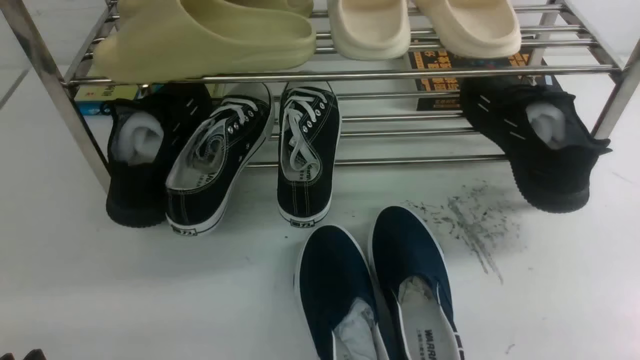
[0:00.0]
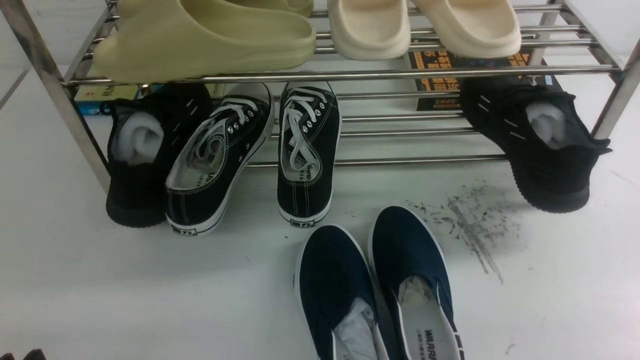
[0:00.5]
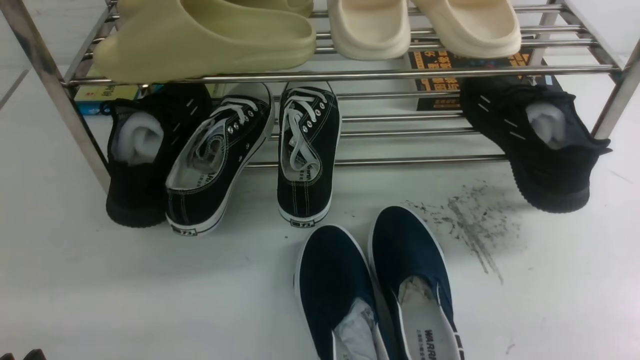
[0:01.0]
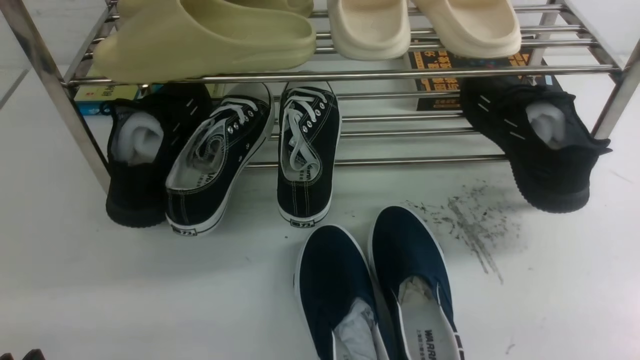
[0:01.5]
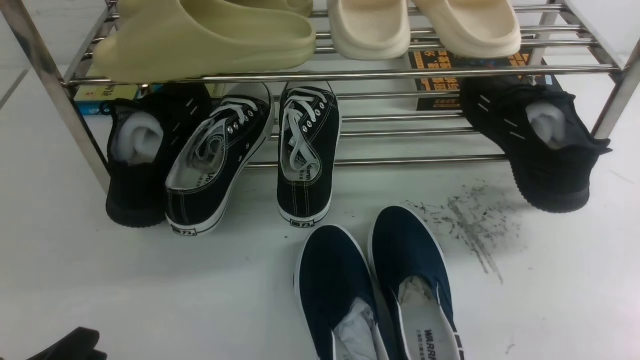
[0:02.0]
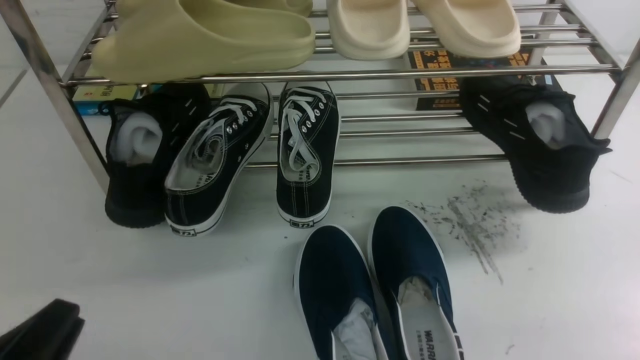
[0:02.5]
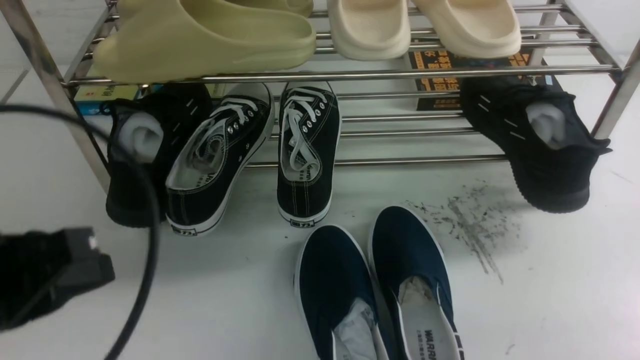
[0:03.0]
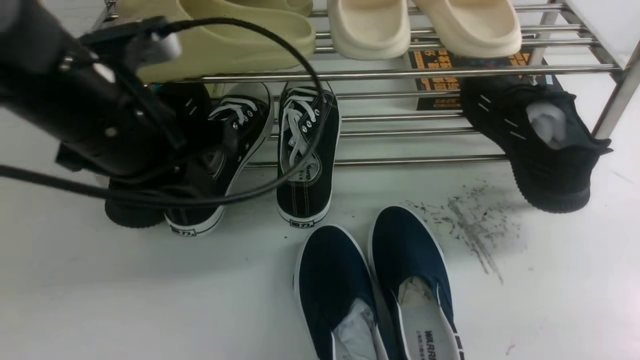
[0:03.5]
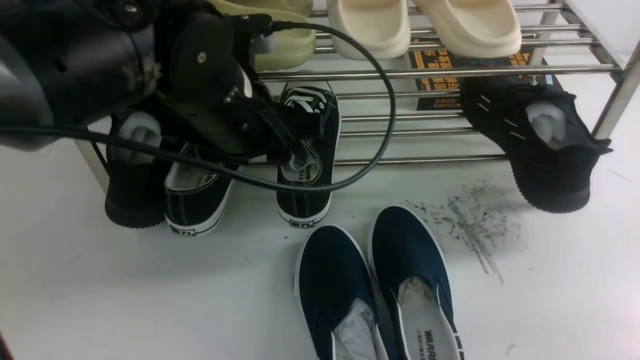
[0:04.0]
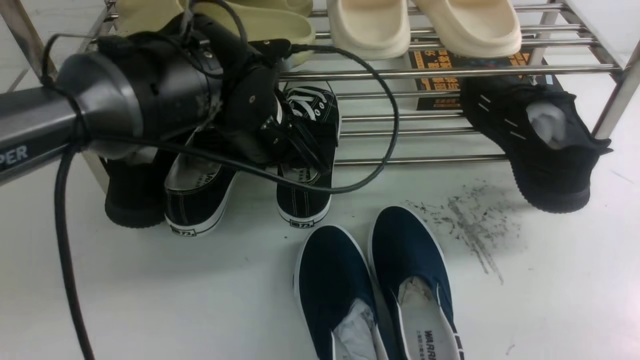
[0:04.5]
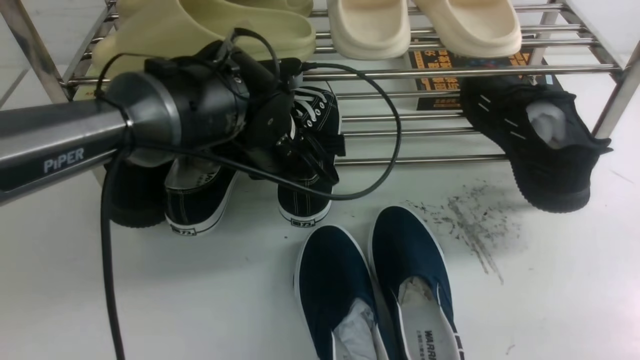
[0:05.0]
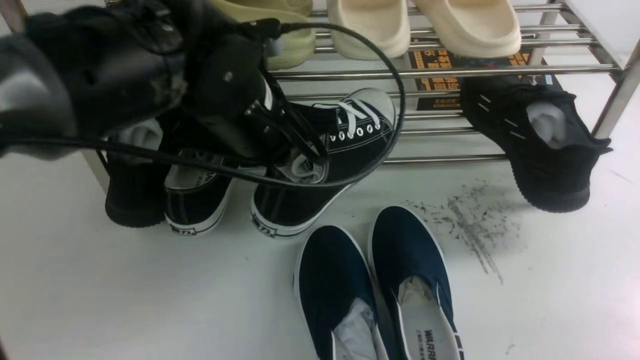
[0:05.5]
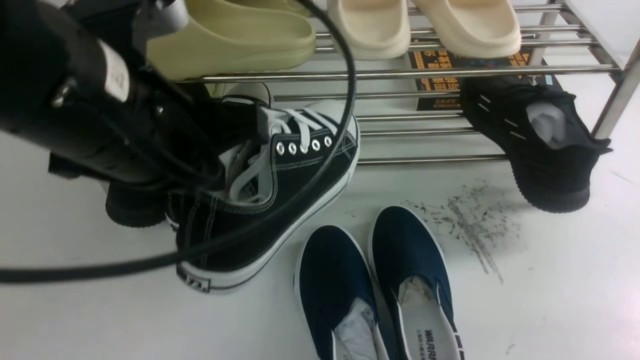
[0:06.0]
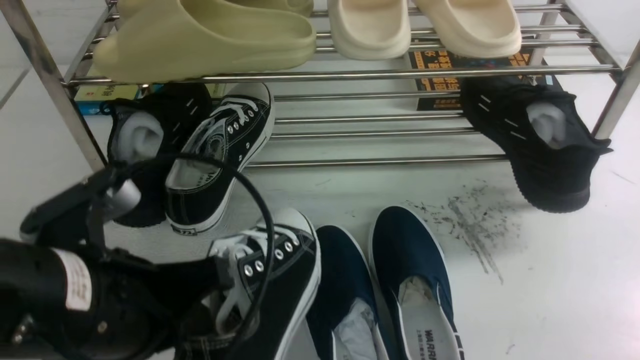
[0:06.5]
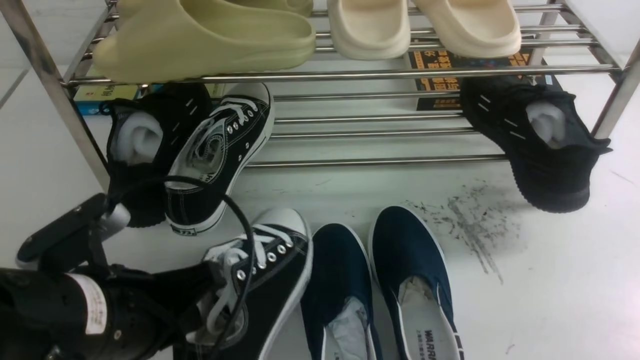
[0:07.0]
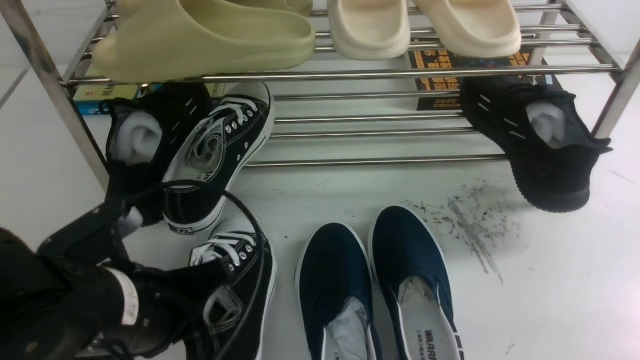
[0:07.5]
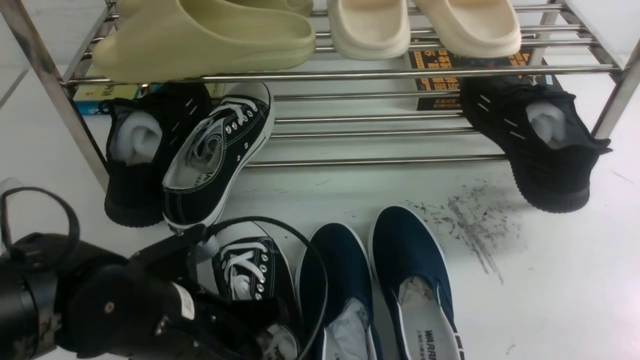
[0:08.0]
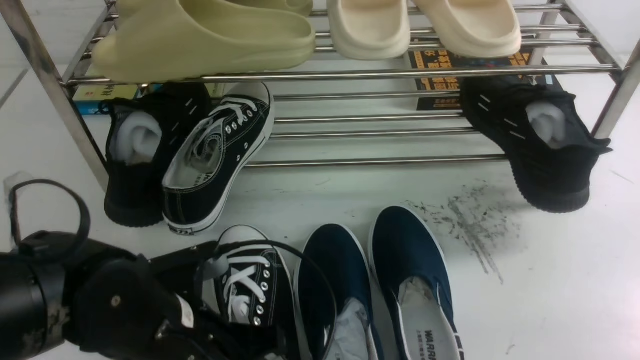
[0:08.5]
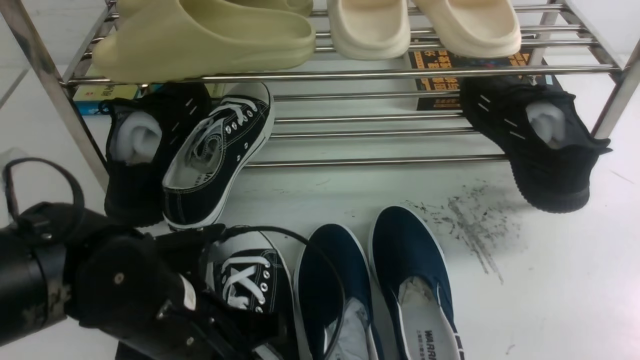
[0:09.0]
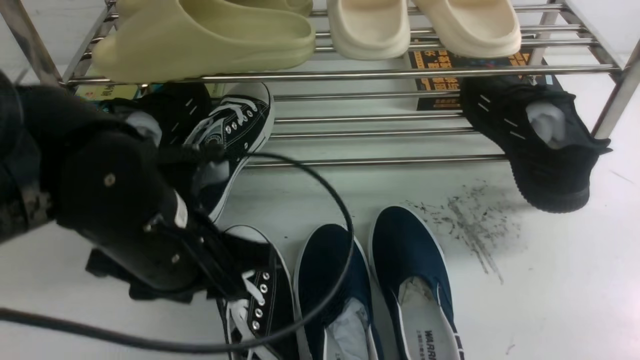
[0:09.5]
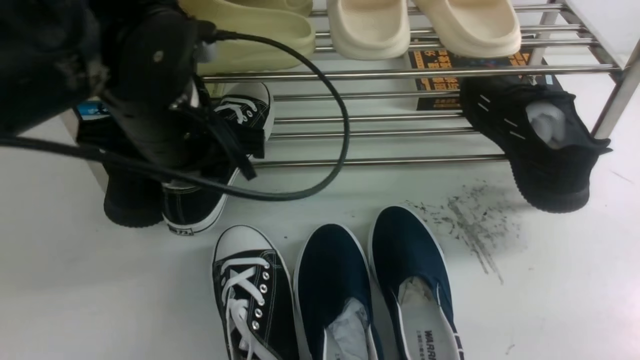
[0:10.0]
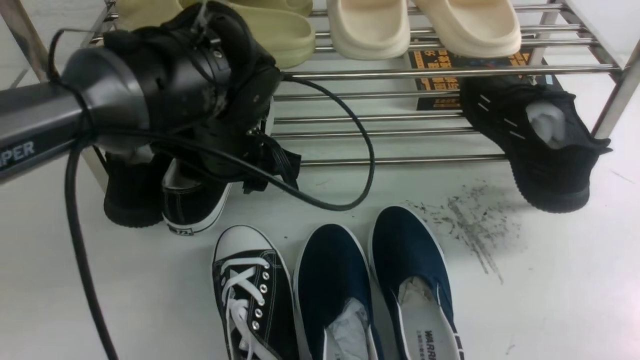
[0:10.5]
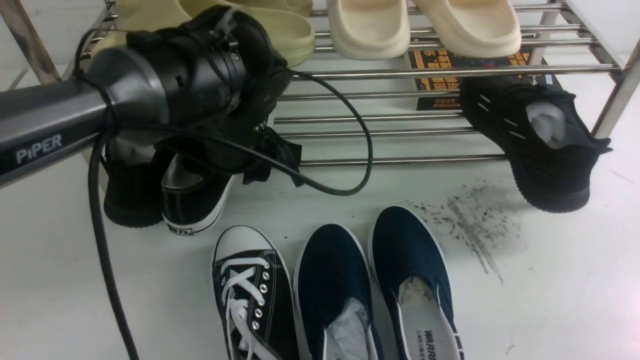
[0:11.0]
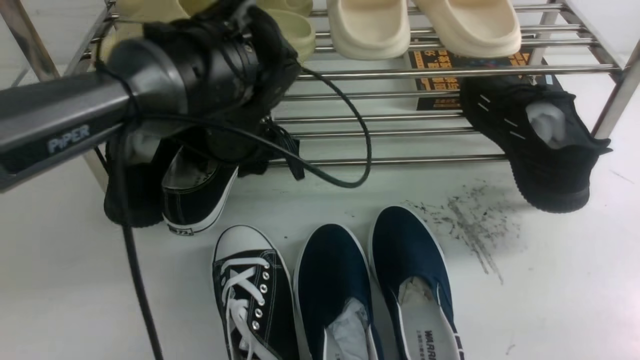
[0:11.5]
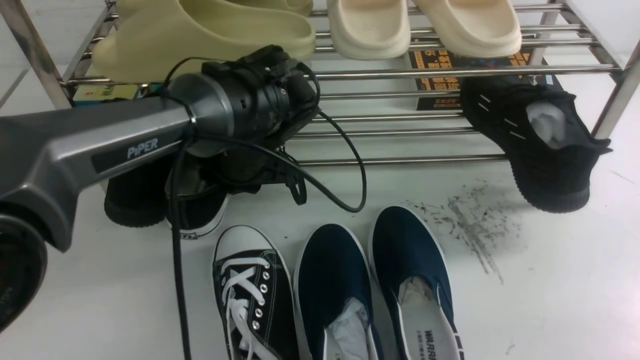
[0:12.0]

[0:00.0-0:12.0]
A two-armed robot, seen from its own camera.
Step, 0:00.0 to 0:05.5: use the left arm to clamp a shoe in the middle of the shoe rack.
Step, 0:06.0 to 0:09.5: Use your left arm to remove the clamped shoe from the shoe rack and put it down.
0:02.0 to 0:04.0: The left gripper travels forward, to the right and upward by roughly 35 cm, and opens its fingers.
0:04.0 to 0:06.0: The left gripper moves backward and upward, some 10 cm, and closes up.
0:06.0 to 0:08.0: The left gripper is displaced downward by some 15 cm.
0:08.0 to 0:10.0: The left gripper moves upward and forward, roughly 15 cm, and opens.
0:10.0 to 0:12.0: The left gripper heads downward and forward, covering approximately 15 cm, and closes its fingers.

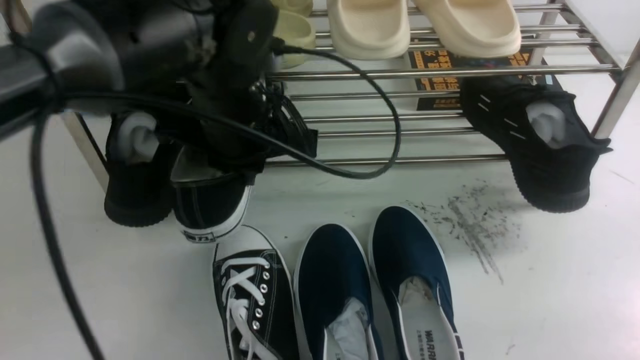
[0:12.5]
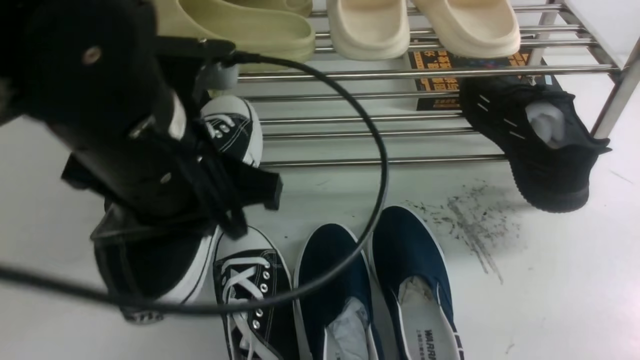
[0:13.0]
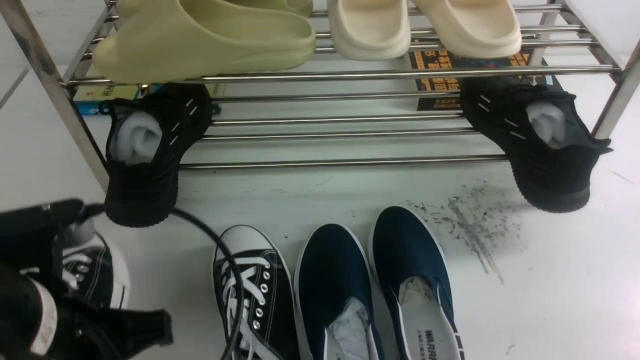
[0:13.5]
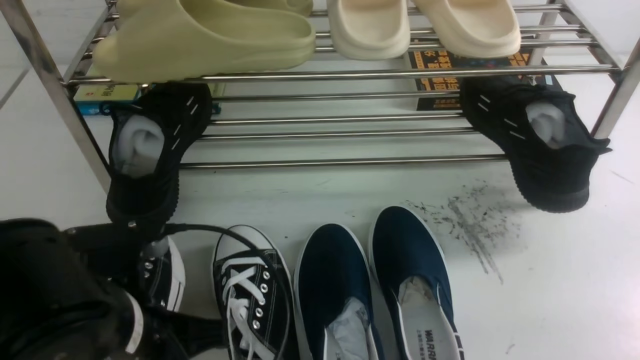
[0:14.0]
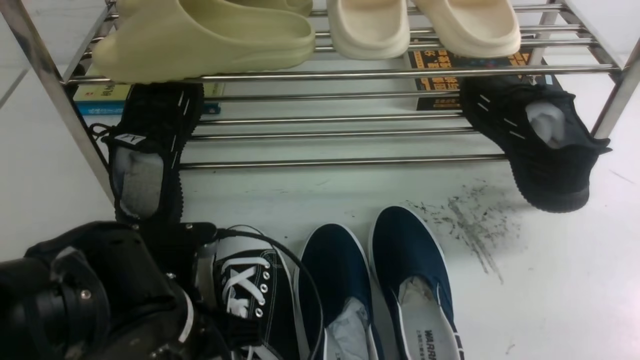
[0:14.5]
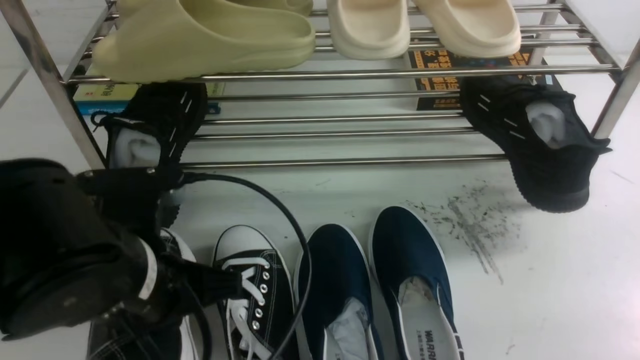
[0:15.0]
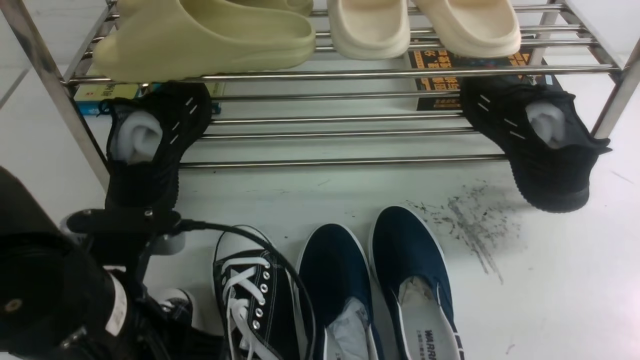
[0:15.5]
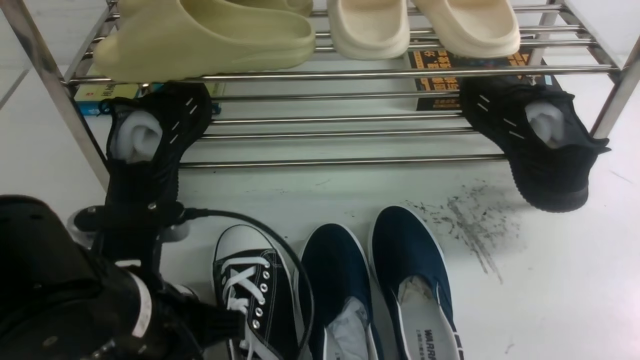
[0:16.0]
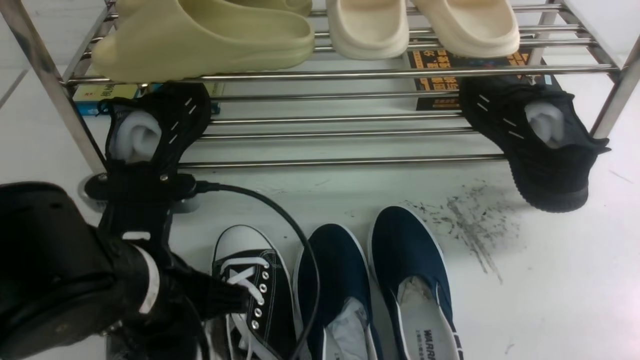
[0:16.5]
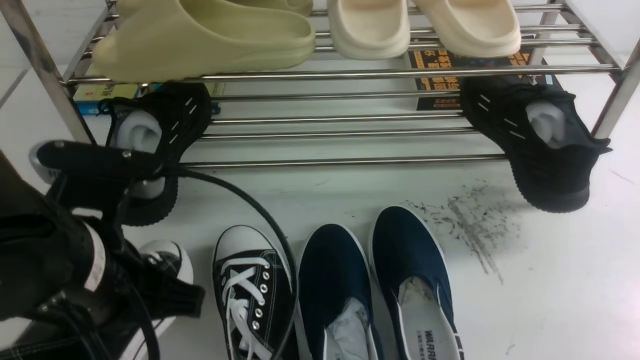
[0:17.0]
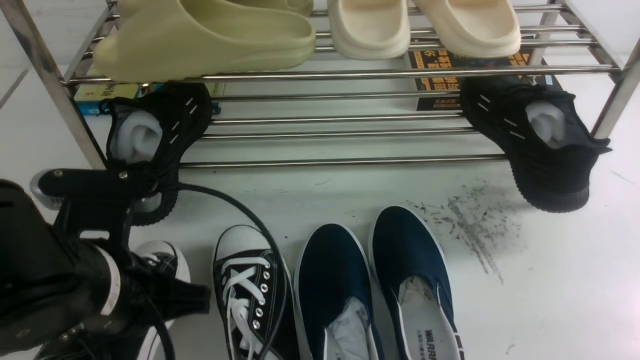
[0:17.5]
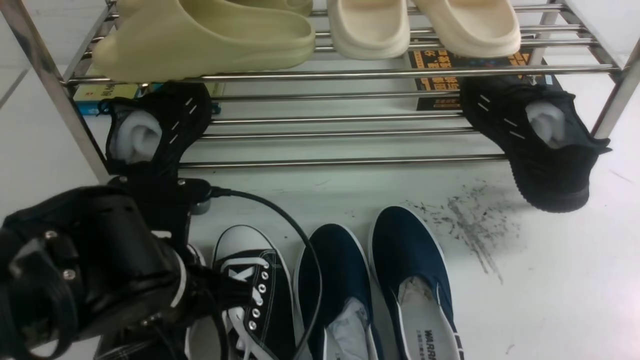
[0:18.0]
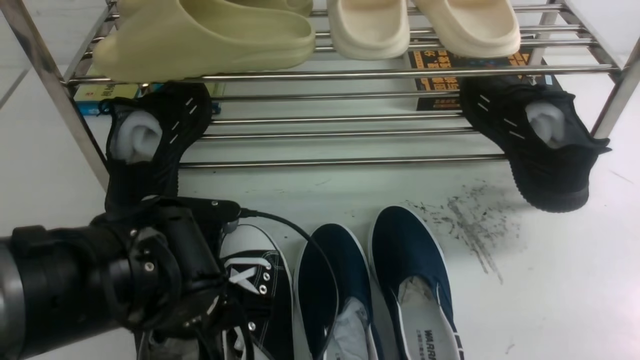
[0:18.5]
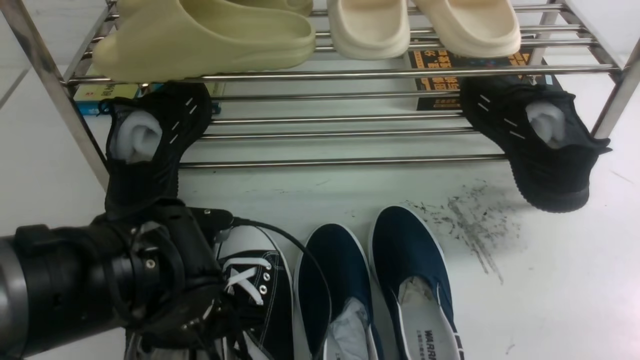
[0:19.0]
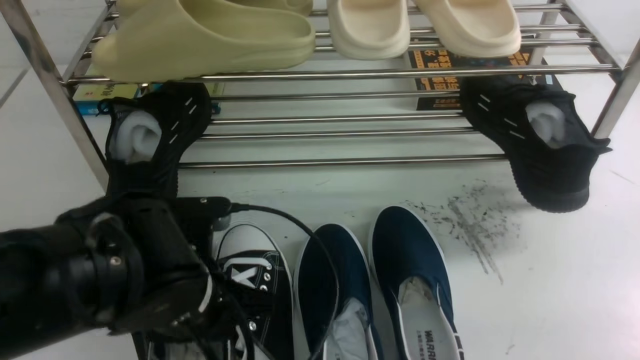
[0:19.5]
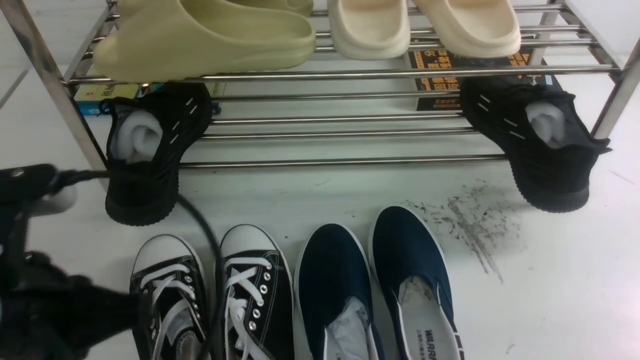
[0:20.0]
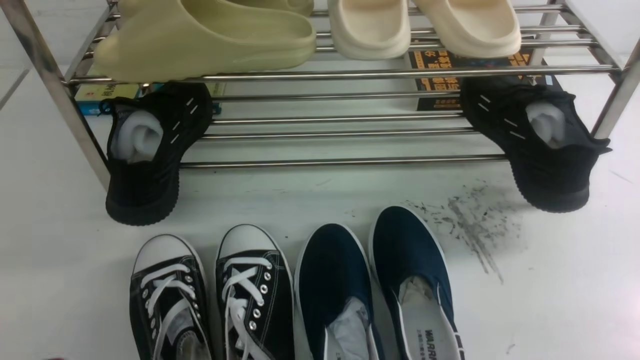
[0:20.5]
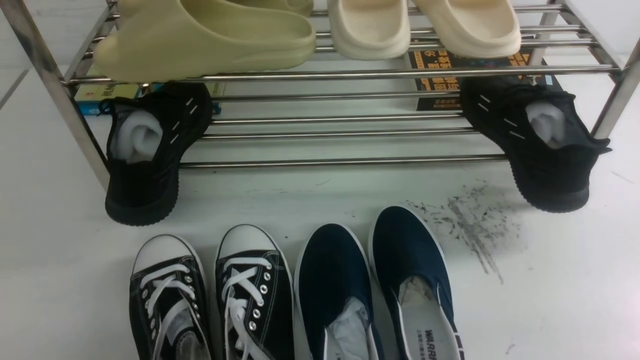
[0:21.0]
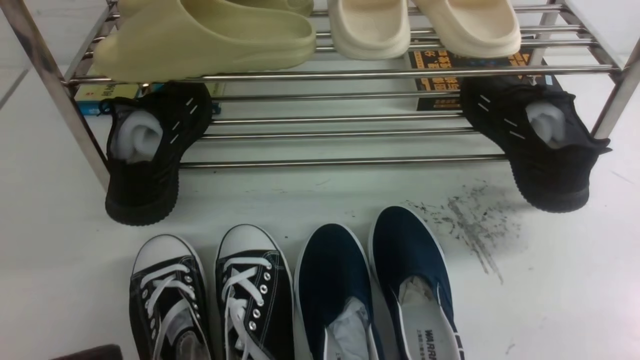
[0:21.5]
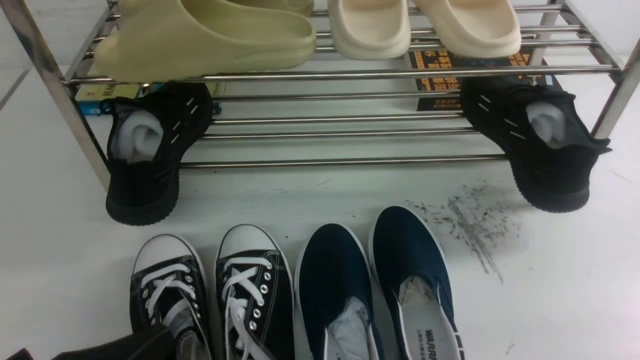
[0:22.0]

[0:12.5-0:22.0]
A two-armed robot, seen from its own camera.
Step, 0:12.5 to 0:19.5: Use your left arm to remove the clamped shoe from the shoe rack and put it down.
0:12.5 to 0:14.5: The left gripper moves backward and downward, about 15 cm.
0:14.5 to 0:16.5: The left gripper moves upward, some 5 cm.
0:16.5 to 0:18.0: The grippers stay close to where they were, moving slightly.
0:18.0 to 0:20.0: The left gripper travels backward, upward and to the left by about 10 cm, and opens, then closes again.
0:20.0 to 0:22.0: The left gripper travels downward by some 10 cm.
